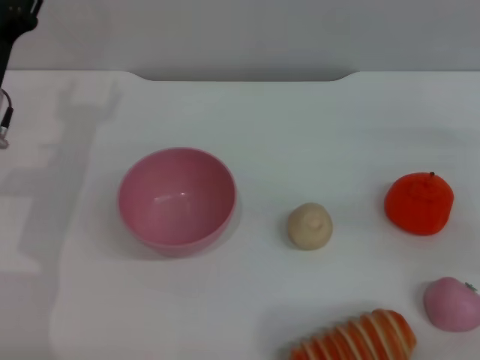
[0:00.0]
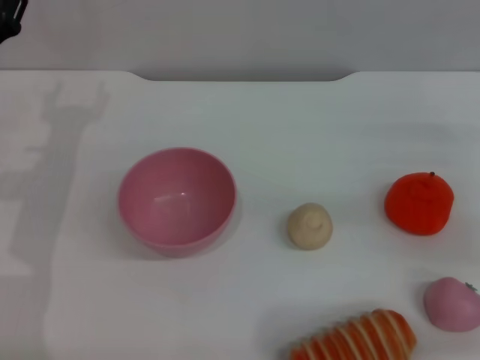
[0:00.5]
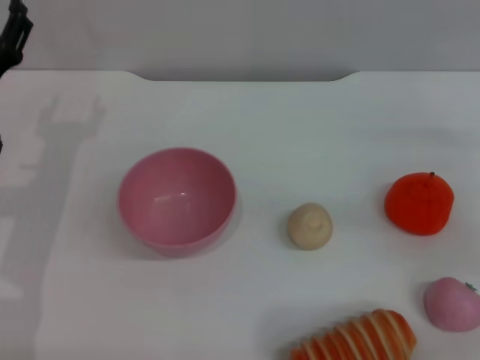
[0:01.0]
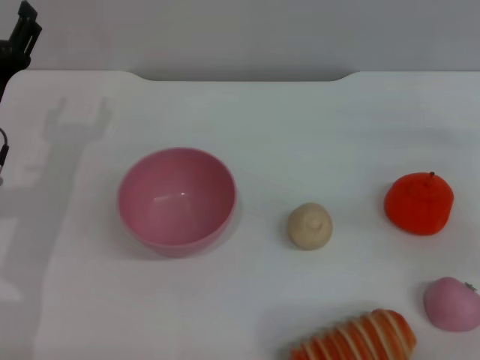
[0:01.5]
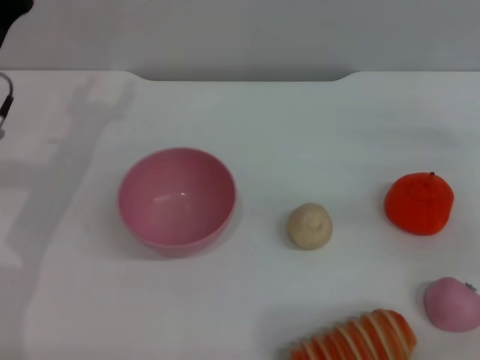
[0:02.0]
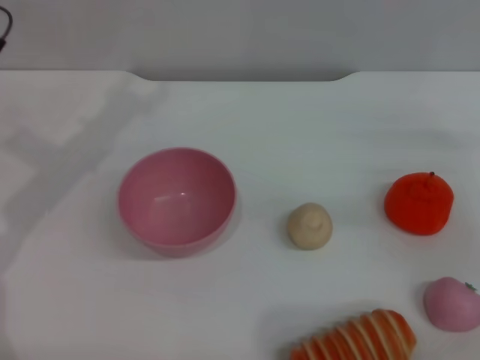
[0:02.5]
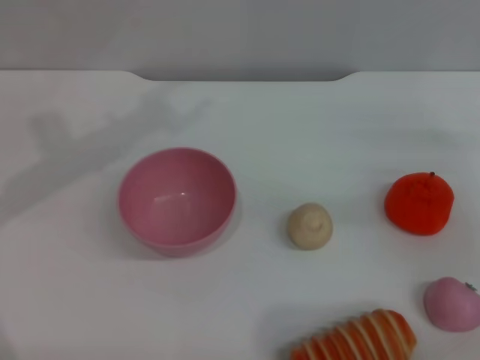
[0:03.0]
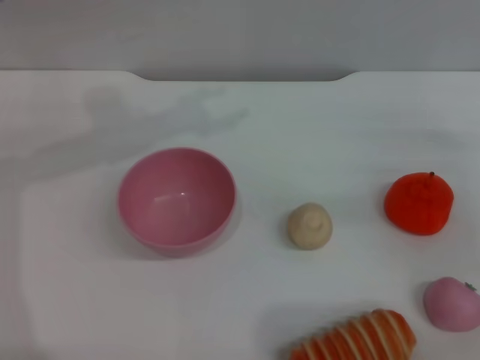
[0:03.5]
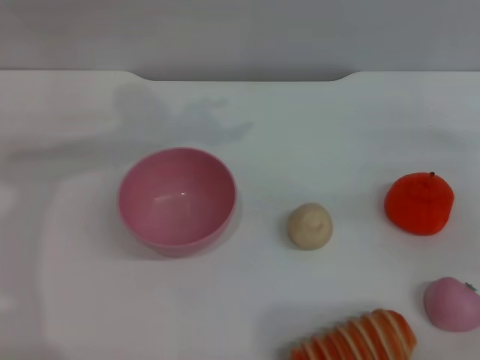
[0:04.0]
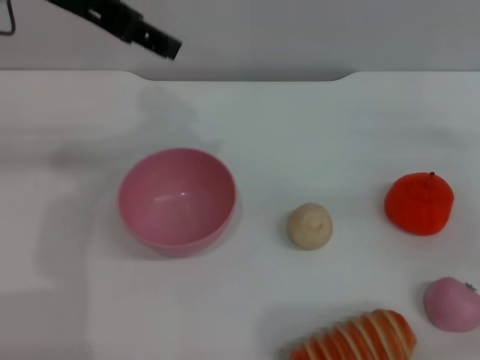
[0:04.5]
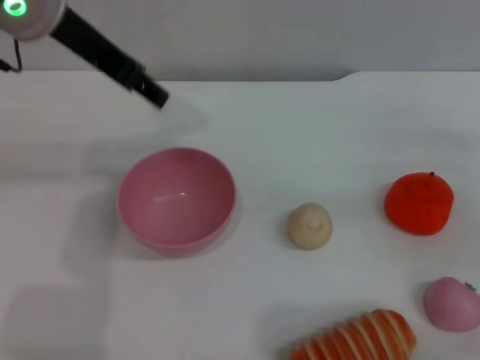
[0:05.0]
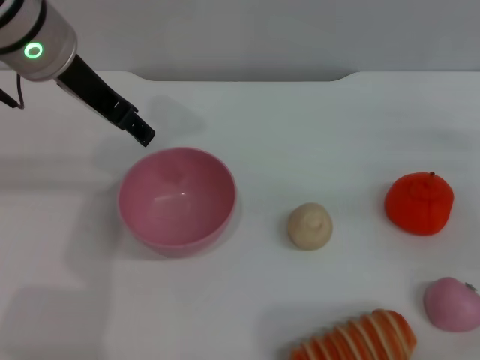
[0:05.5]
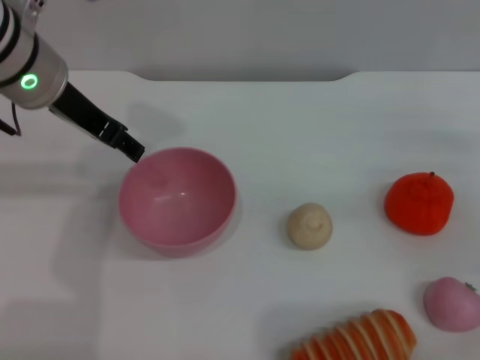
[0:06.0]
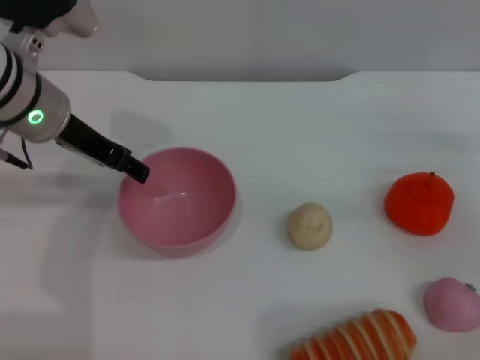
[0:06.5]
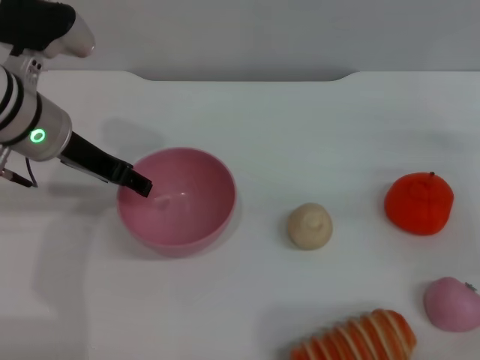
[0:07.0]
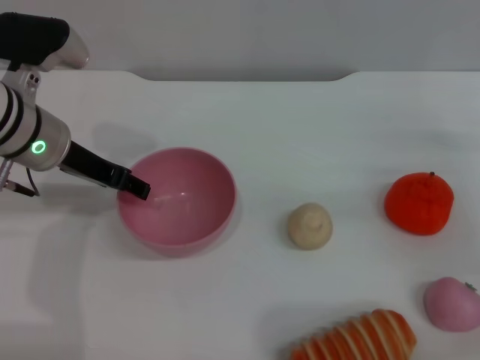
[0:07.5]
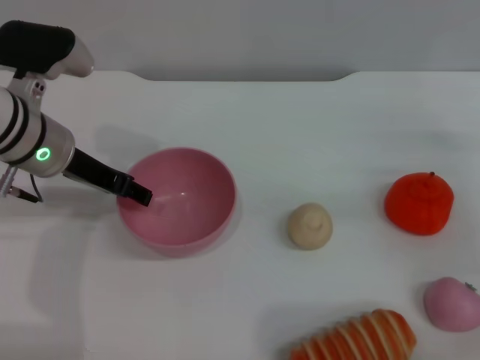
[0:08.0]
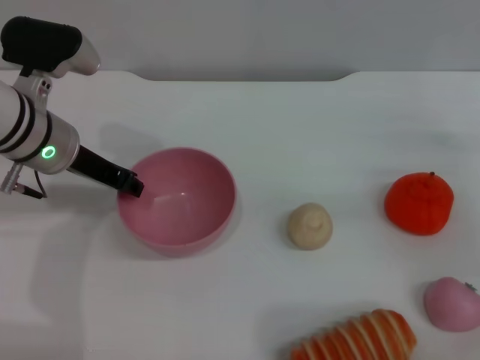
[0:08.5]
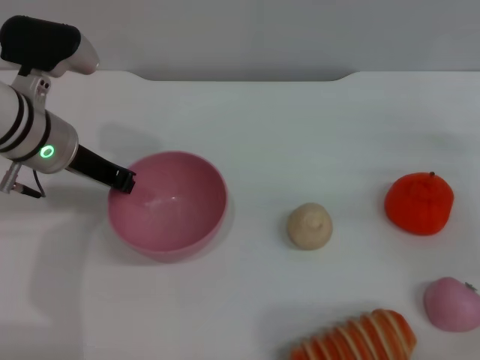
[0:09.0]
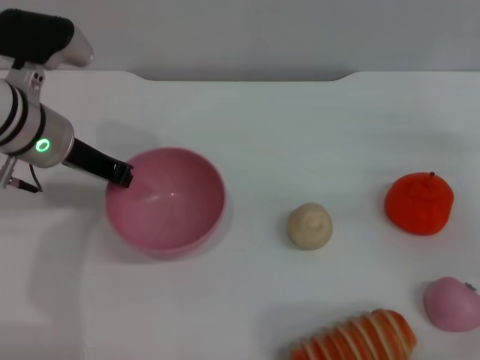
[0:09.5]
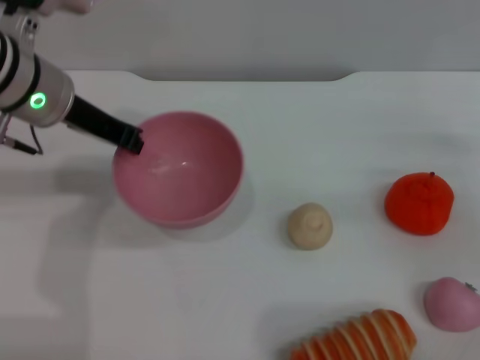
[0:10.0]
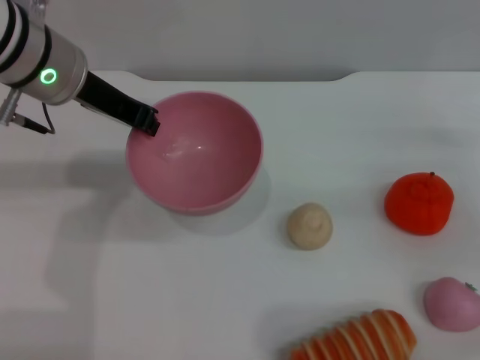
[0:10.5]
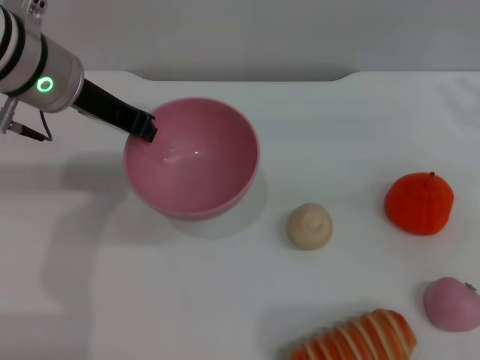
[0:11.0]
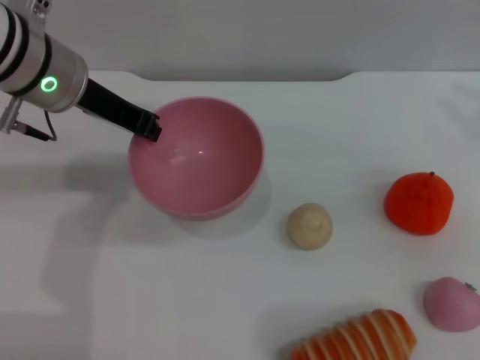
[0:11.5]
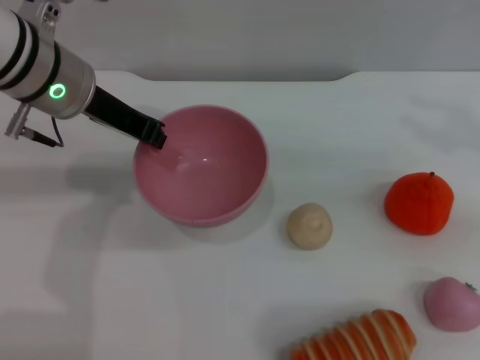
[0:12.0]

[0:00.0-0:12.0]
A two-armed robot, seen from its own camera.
Task of the whole recording: put the peach into the pink bowl and pour it out repeatedly.
Step, 0.0 to 10.5 s: Pick up the bowl with the left gripper.
0.0 to 2.0 s: The grippers stay close to where they were, moving slightly.
2.0 to 4.0 s: The left gripper moves upward, roughly 20 cm.
4.0 to 6.0 s: The left gripper goes about 10 cm downward.
6.0 to 8.0 s: The left gripper travels downward by roughly 10 cm.
8.0 to 10.0 s: The left gripper is displaced upward by roughly 5 cm, and closes.
10.0 to 12.0 s: The right gripper is displaced upward by approximately 25 cm.

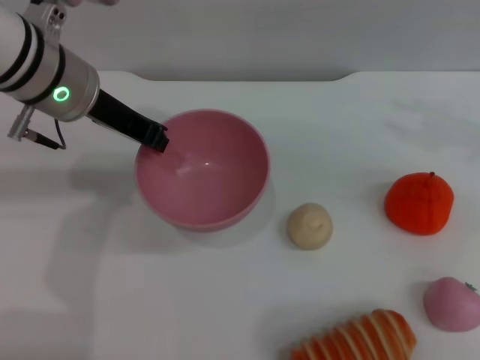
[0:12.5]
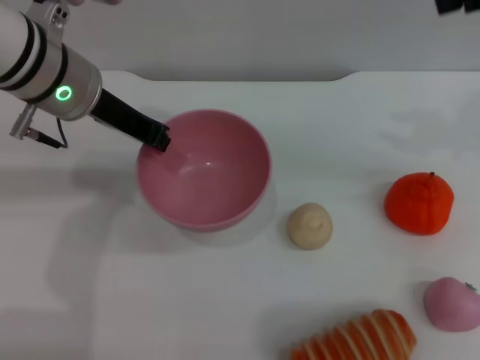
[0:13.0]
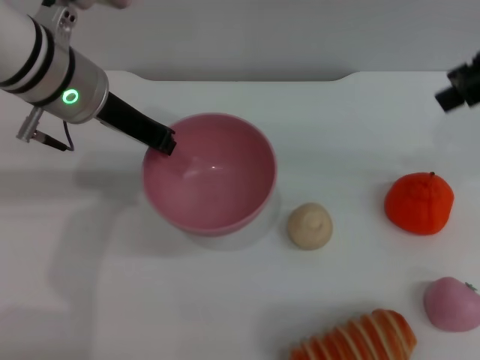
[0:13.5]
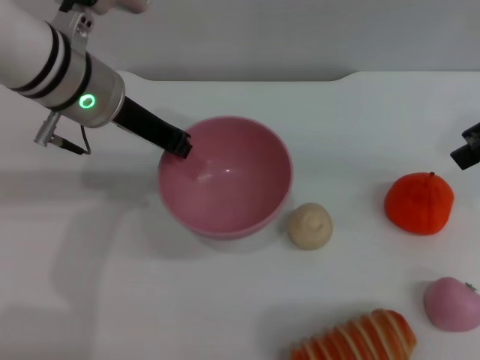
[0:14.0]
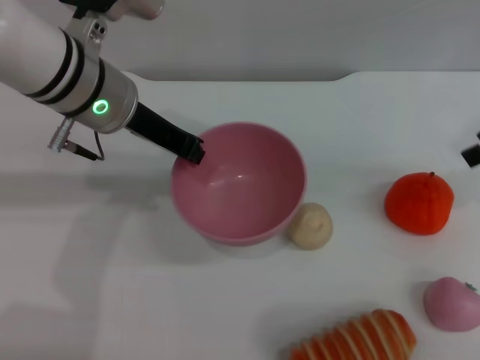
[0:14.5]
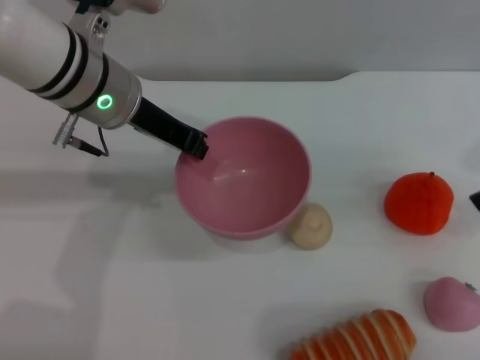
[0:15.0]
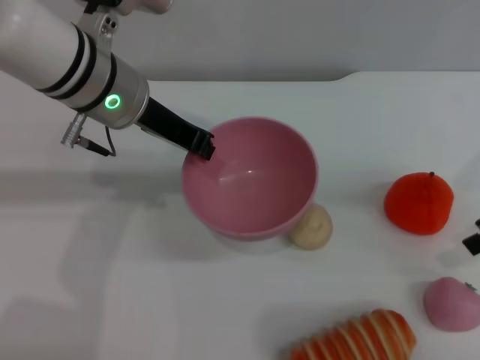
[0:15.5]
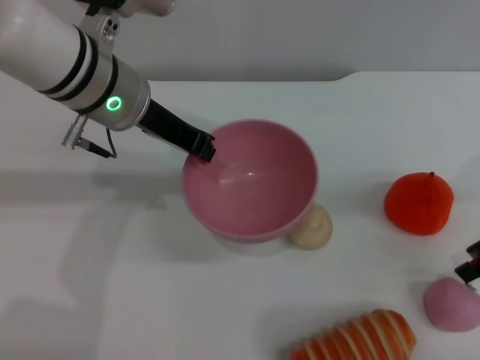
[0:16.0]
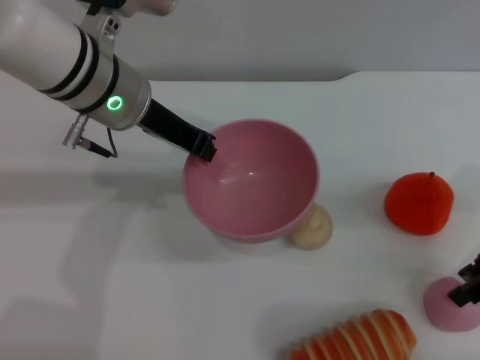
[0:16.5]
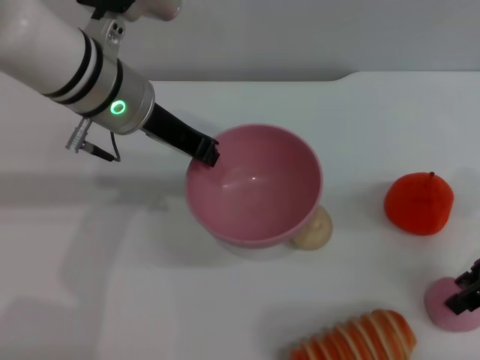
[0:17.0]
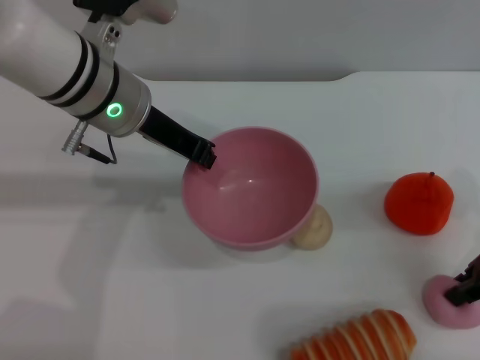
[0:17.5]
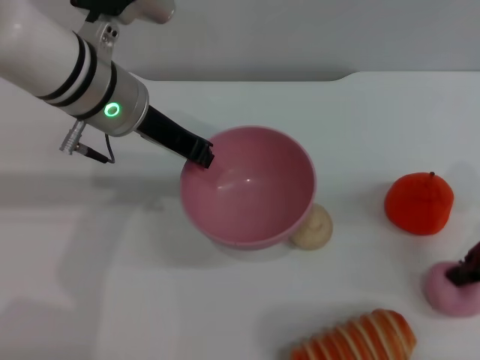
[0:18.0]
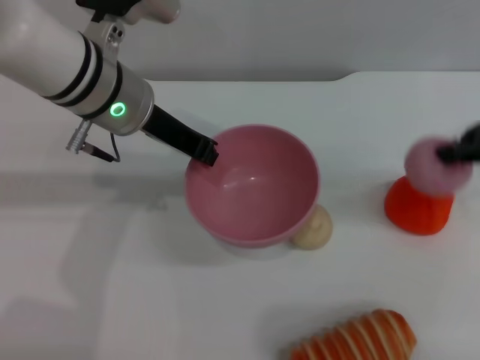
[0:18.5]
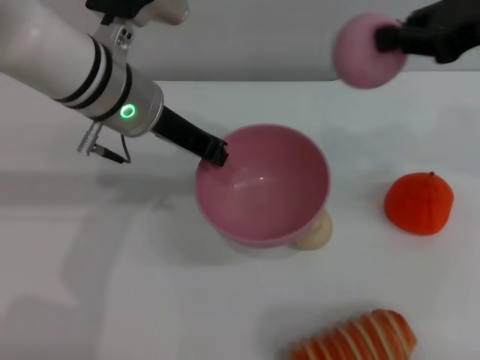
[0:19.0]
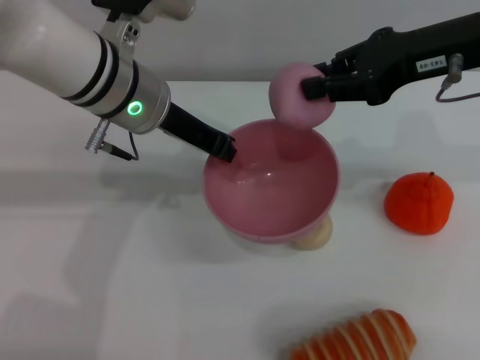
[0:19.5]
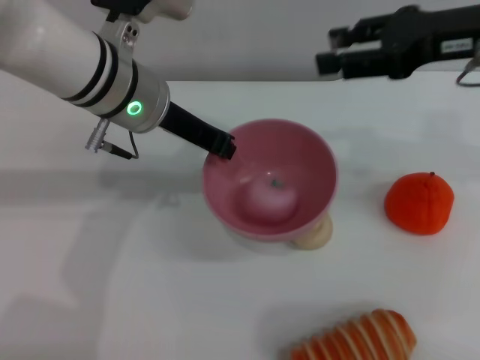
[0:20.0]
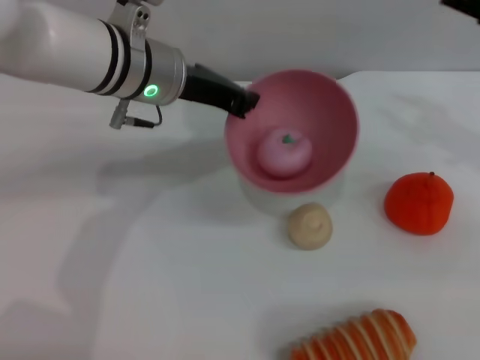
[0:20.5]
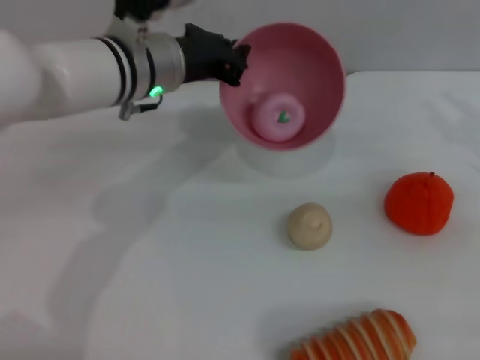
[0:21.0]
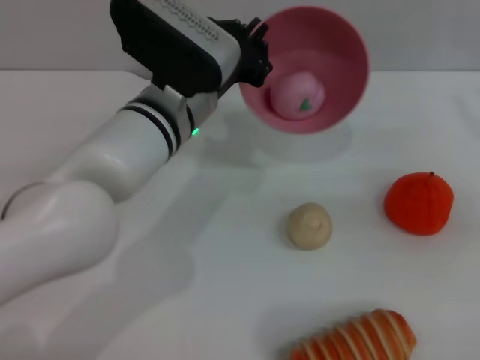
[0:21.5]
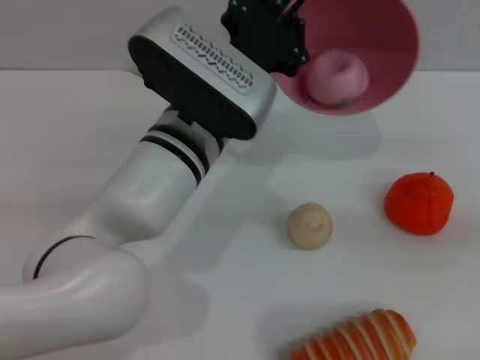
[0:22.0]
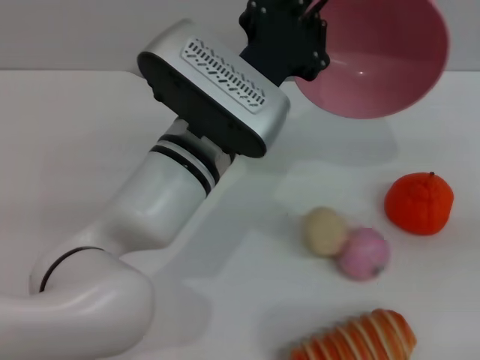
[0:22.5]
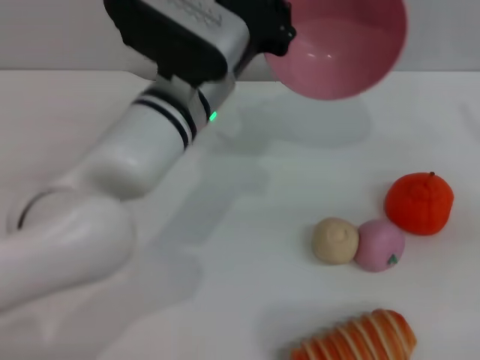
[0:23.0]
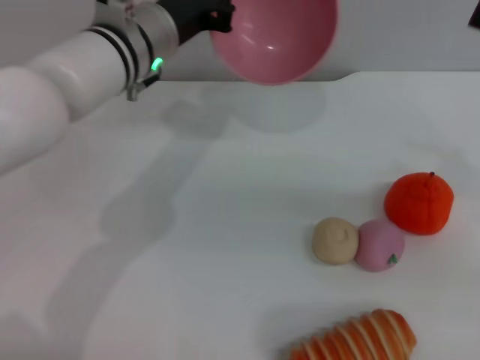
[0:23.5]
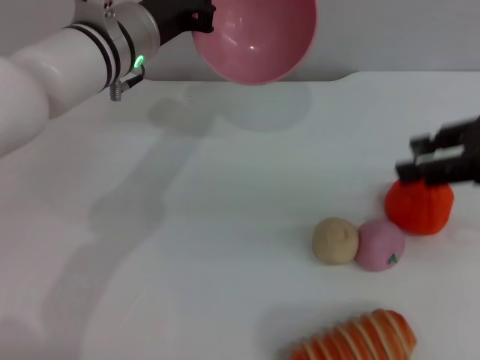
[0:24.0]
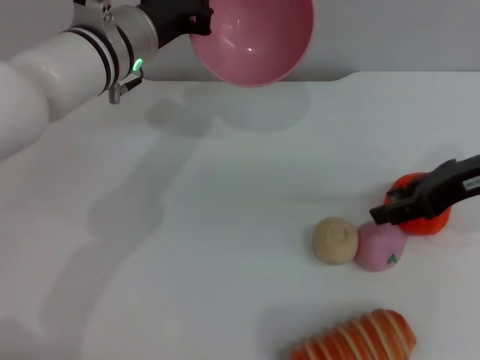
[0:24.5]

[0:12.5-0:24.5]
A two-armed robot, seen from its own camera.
Task of the whole recording: put the peach into the pink bowl and pour it out repeatedly.
Step, 12.5 to 18.0 s: Pick up the peach with the right gripper.
Step, 18.5 to 20.0 s: Place the peach into the bowl.
Step, 20.5 to 23.0 s: Pour the peach out of bowl.
12.5 to 14.5 s: The right gripper shifts about 10 cm downward.
14.5 to 16.5 s: The right gripper is displaced downward by approximately 10 cm.
16.5 to 18.5 s: The right gripper heads upward, covering about 10 cm, and closes up.
18.5 to 20.5 s: The right gripper travels to the left and back again, approximately 10 cm each way, and opens up.
20.5 to 22.5 s: The left gripper travels backward and to the right by about 10 cm. The right gripper heads to the right, backward and downward, covering about 10 cm.
22.5 to 24.5 s: The left gripper shifts some 15 cm forward and to the left, while the right gripper travels to the left by some 15 cm.

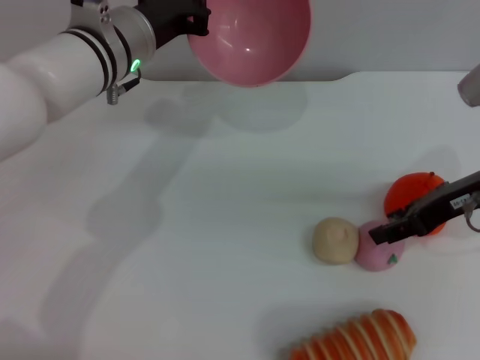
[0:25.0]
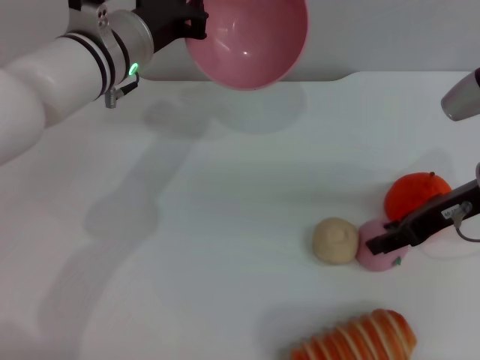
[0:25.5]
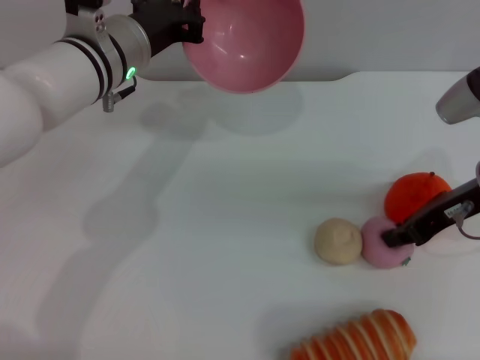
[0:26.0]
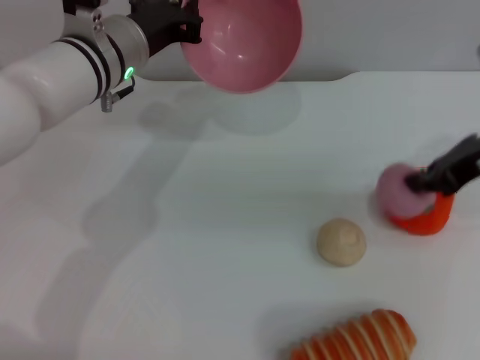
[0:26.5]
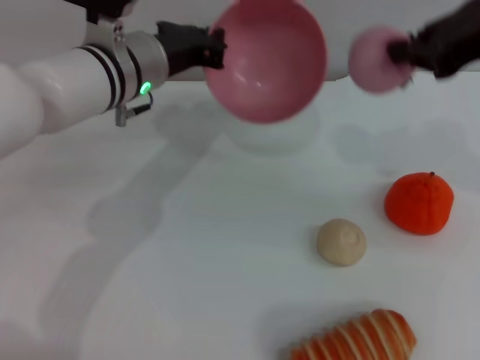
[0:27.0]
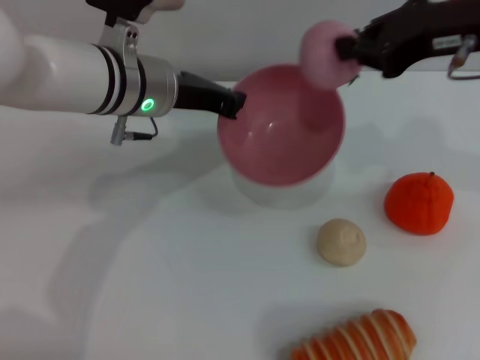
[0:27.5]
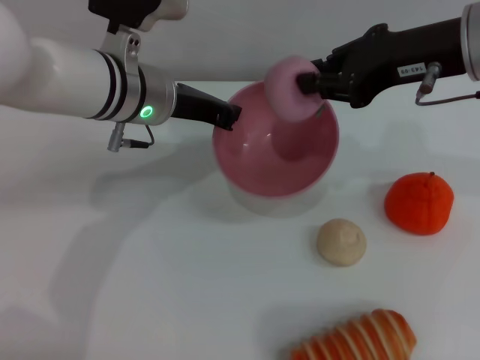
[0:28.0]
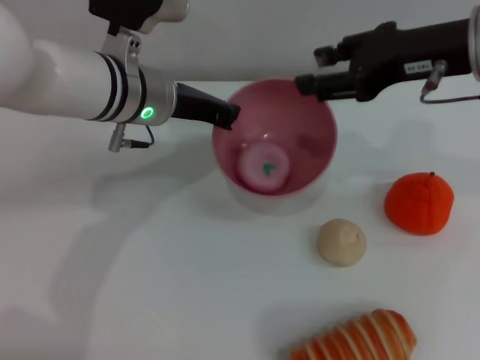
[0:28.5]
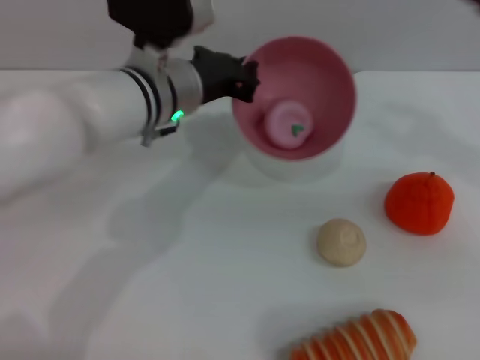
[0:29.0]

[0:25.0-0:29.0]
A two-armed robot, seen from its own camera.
Task of the whole recording: put the peach into the pink bowl and pour it out repeatedly.
Step, 26.5 to 28.0 s: Place the peach into the bowl.
25.0 to 27.0 s: The right gripper heads upward, covering approximately 15 cm, and closes its fingers.
27.0 to 29.0 s: The right gripper shifts some 10 cm downward and to the right, and opens its fingers.
